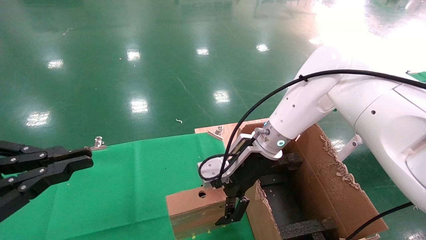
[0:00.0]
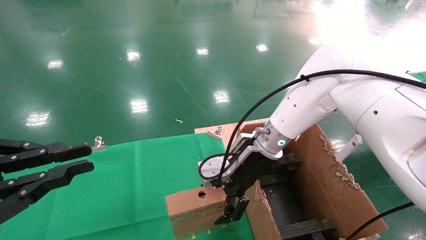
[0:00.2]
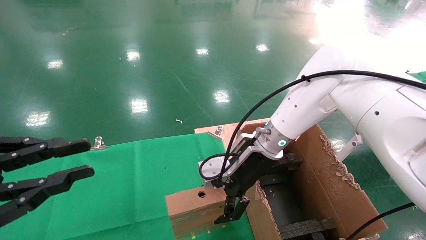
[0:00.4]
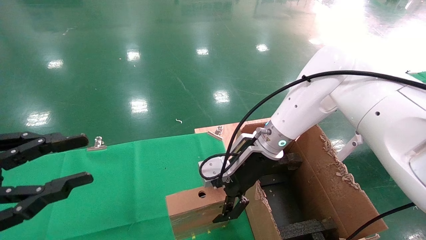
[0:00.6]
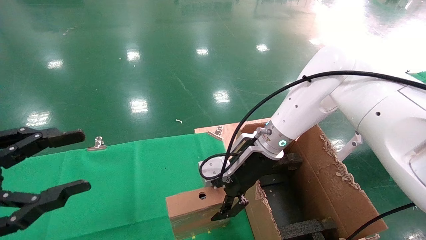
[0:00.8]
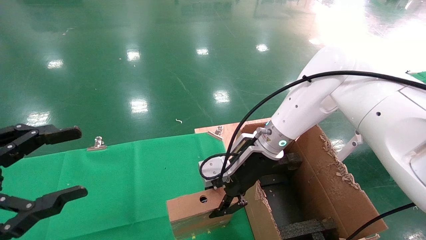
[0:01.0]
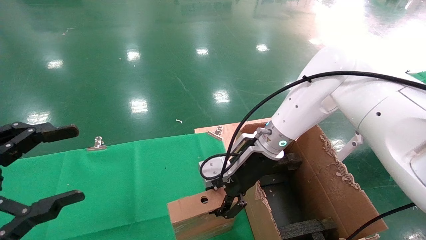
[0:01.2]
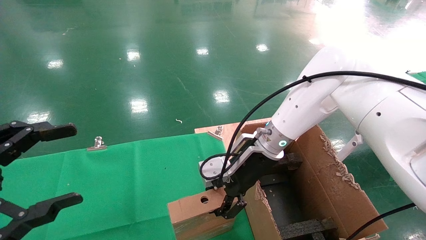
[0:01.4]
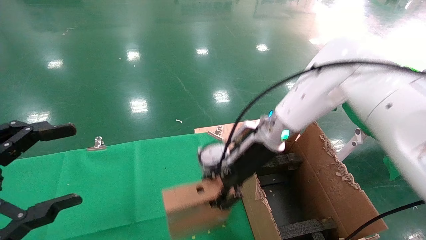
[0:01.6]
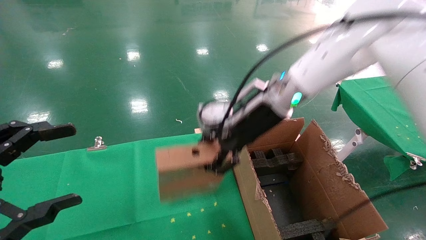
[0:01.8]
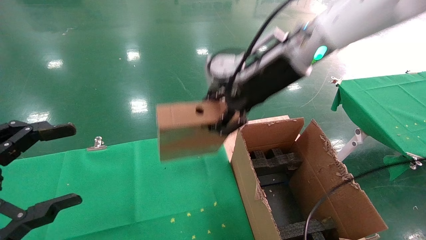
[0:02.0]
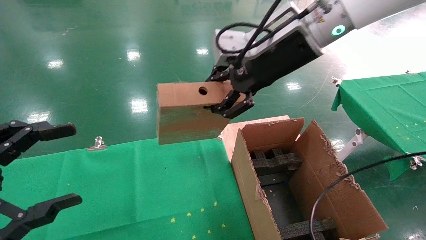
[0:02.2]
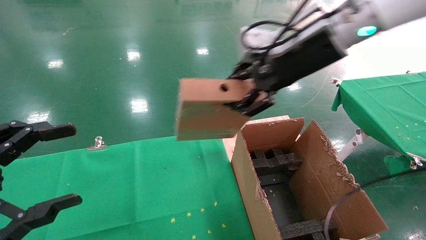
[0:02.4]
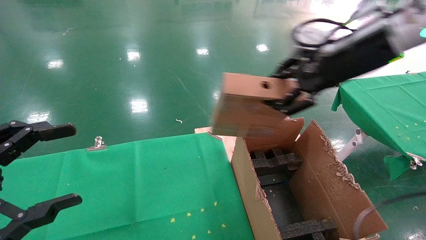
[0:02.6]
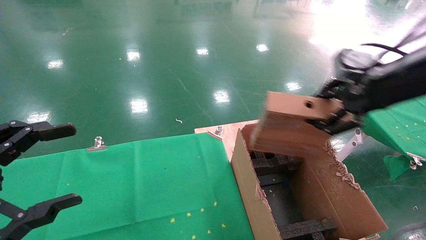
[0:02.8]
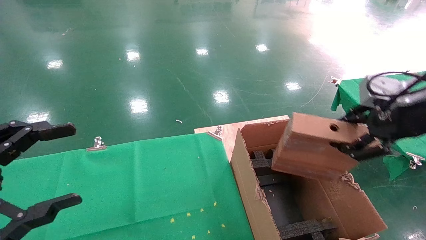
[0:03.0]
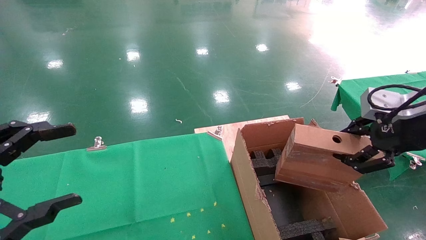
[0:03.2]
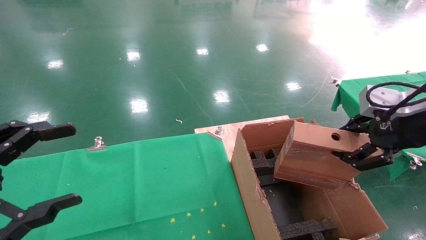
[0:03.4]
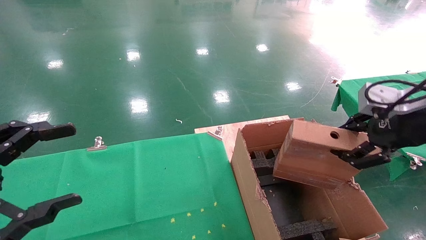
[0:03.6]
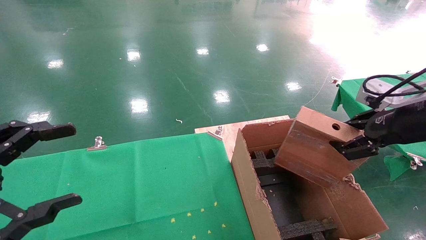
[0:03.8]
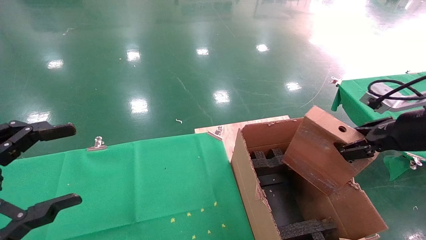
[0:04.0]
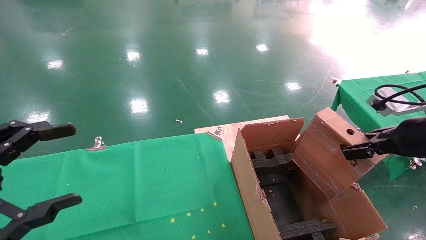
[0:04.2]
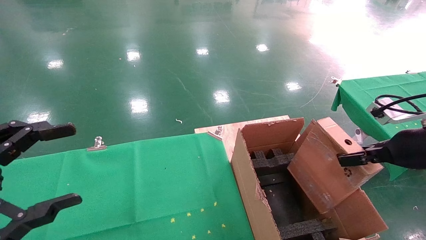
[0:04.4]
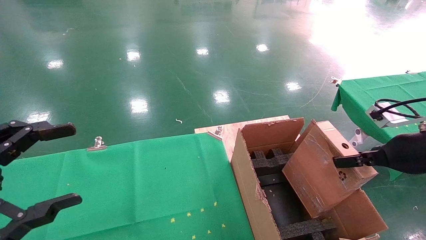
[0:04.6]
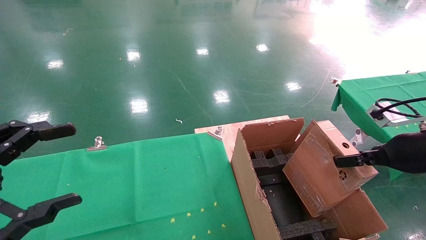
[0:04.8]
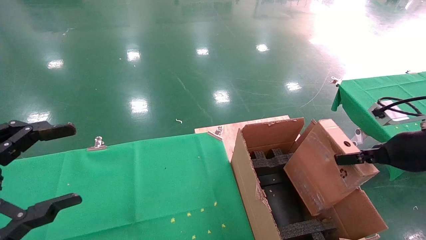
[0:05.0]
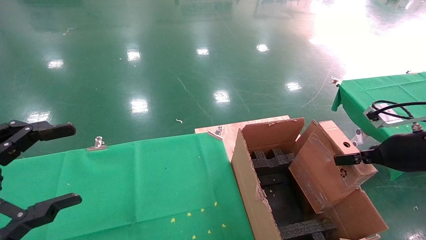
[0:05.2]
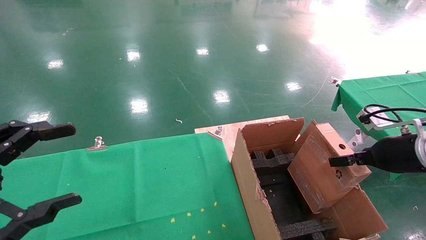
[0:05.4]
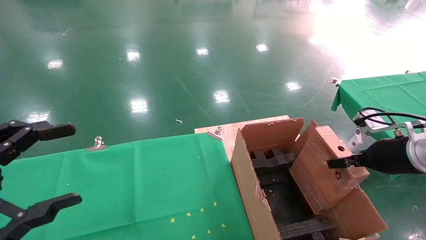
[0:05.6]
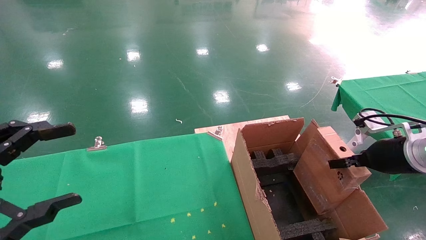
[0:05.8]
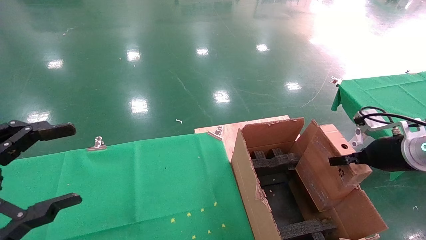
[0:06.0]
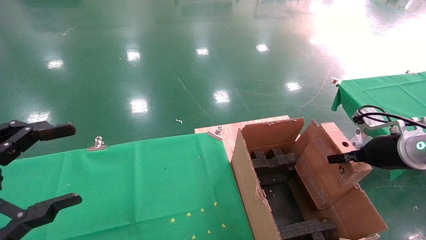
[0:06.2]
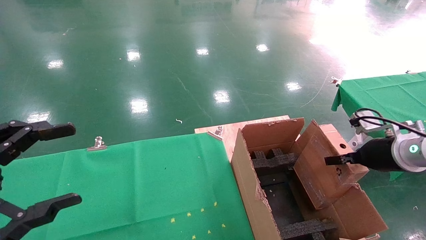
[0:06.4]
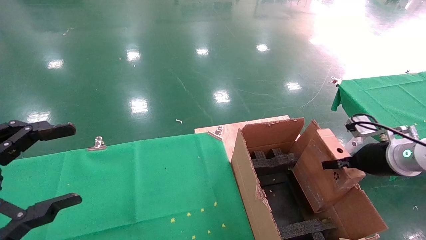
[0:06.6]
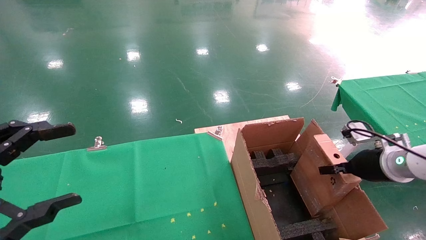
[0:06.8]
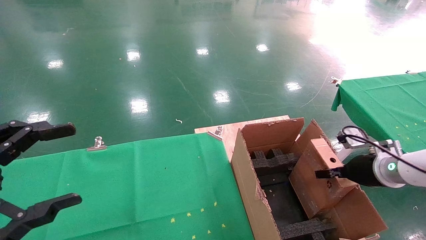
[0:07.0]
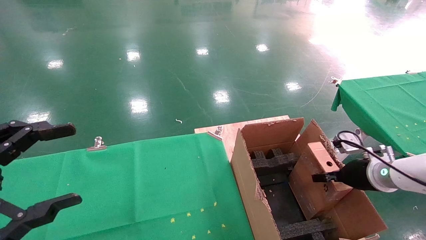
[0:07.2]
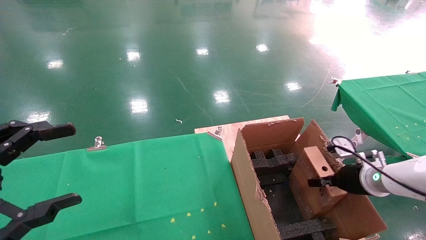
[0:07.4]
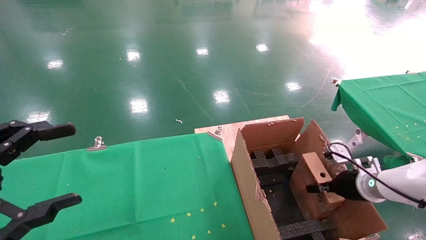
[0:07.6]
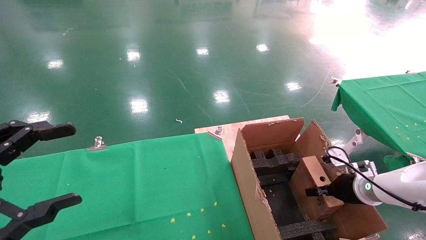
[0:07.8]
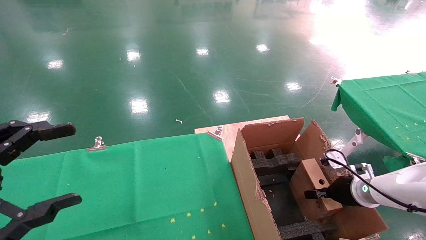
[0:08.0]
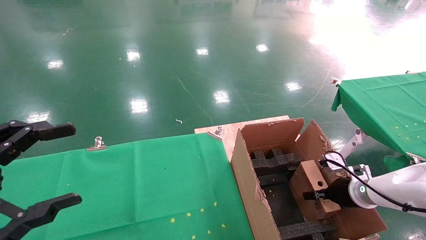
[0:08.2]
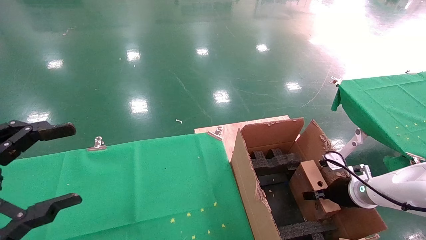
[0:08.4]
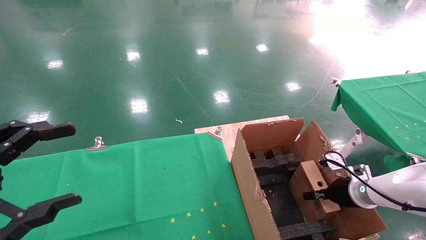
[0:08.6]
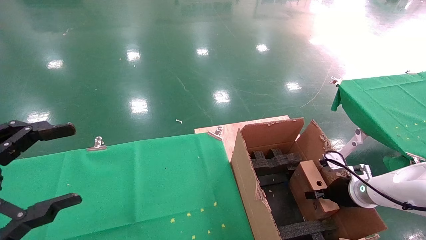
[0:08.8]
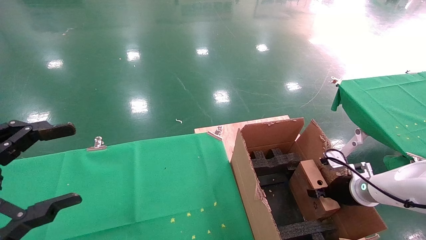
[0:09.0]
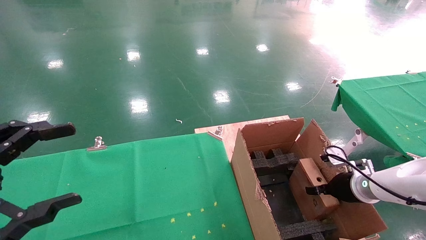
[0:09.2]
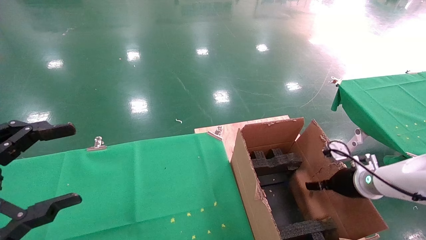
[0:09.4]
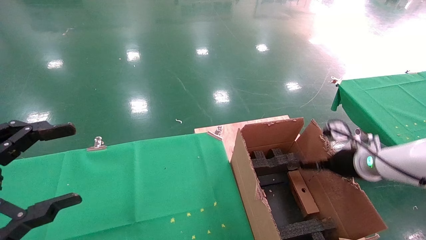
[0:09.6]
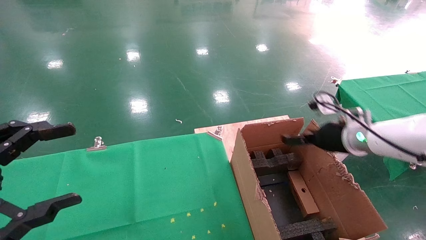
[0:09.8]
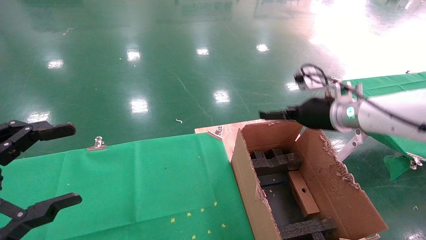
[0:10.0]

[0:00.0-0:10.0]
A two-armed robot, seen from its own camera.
Task of the whole recording: using a robotic arm to pick up a cardboard box and palace it the carton.
Step, 0:01.2 to 0:09.4: Place the mouse and the power cord paper box into the container.
0:00.0 to 0:01.4: The right gripper closes up, while the left gripper opens.
0:01.4 to 0:02.8: The right gripper is displaced to the right, upward and backward by approximately 30 cm.
0:02.8 to 0:04.2: The right gripper shifts approximately 10 cm downward and to the right.
0:04.2 to 0:05.8: The right gripper travels downward by about 5 cm.
0:05.8 to 0:07.2: The right gripper shifts approximately 10 cm downward.
0:07.2 to 0:08.6: The right gripper shifts approximately 5 cm downward.
0:08.6 to 0:10.0: The right gripper moves upward and to the left, some 20 cm, and opens up.

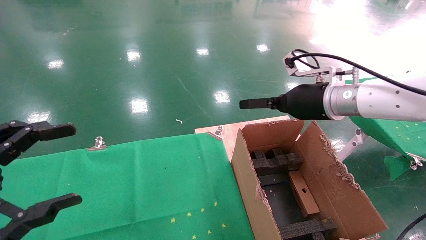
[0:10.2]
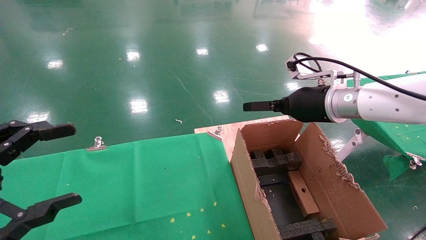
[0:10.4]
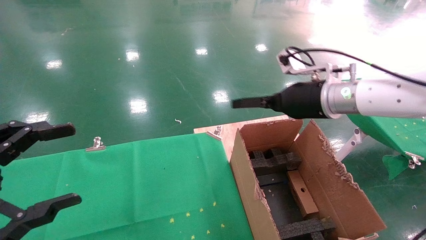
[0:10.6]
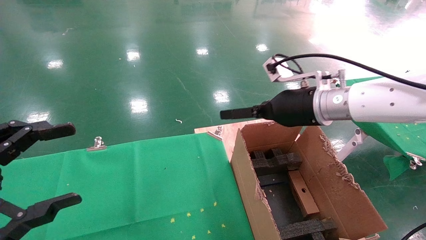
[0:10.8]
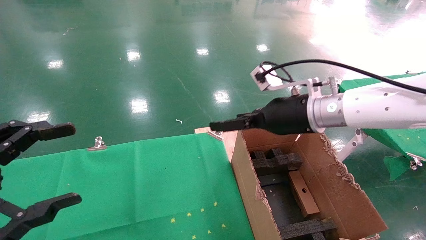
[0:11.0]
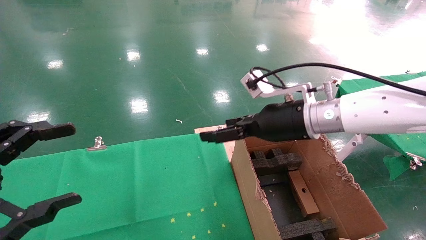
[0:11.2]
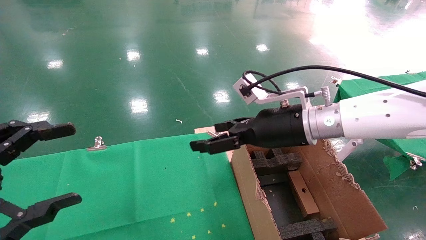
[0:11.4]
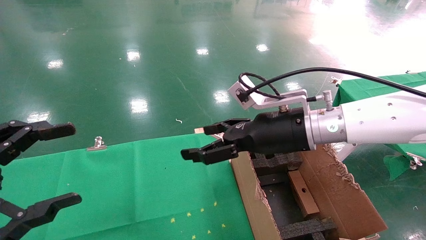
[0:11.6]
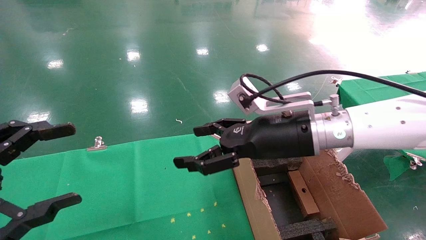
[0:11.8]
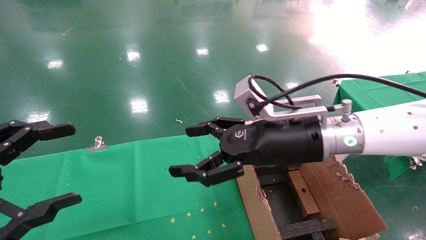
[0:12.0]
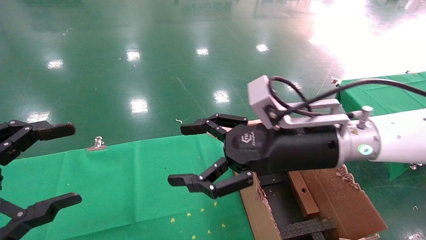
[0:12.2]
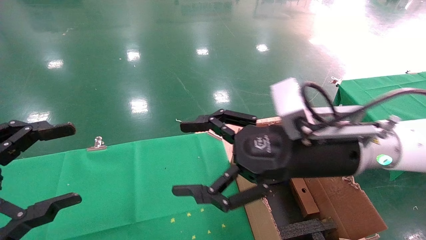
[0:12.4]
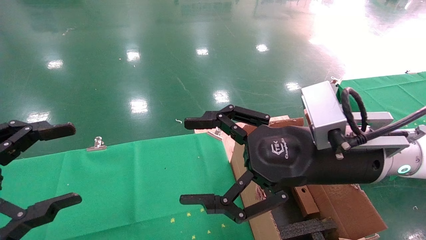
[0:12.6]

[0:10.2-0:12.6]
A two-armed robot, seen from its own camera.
Task of the whole recording: using a robotic arm to pick up a cardboard box and palace it the carton.
0:10.2 to 0:11.4: The right gripper is displaced to the left by approximately 10 cm.
0:11.4 to 0:12.6: The right gripper shifts roughly 10 cm backward.
